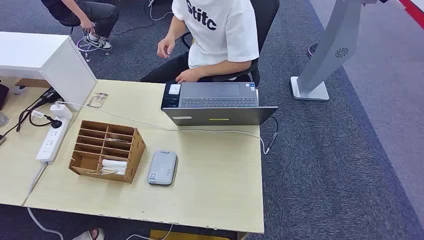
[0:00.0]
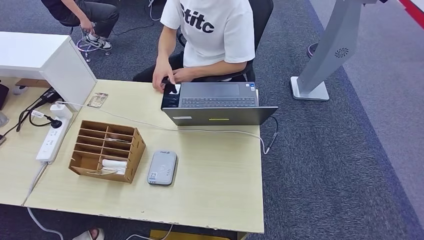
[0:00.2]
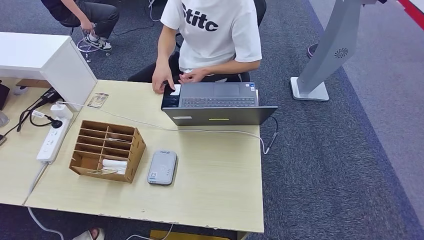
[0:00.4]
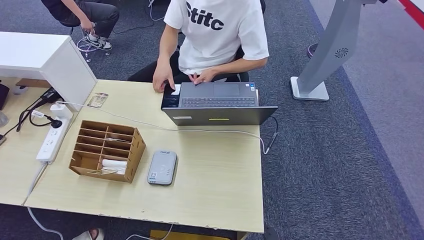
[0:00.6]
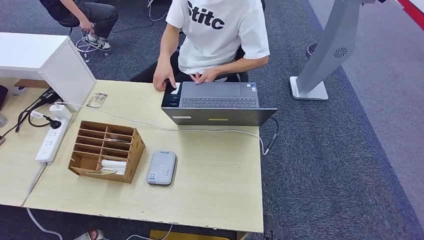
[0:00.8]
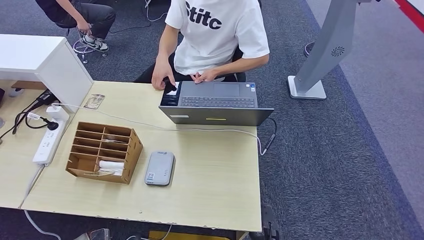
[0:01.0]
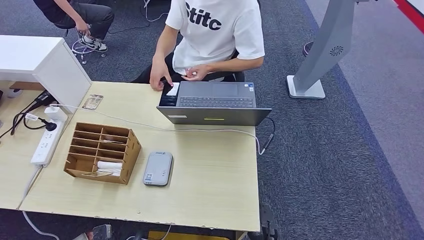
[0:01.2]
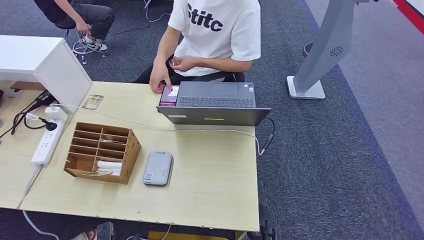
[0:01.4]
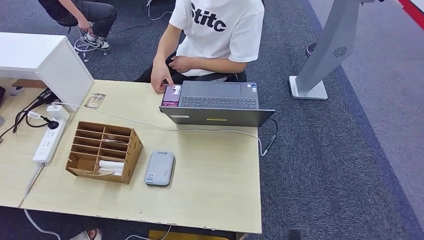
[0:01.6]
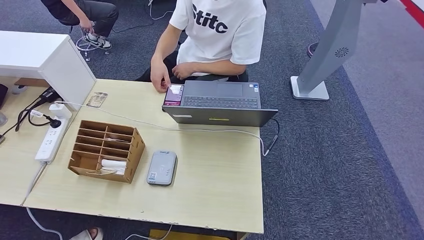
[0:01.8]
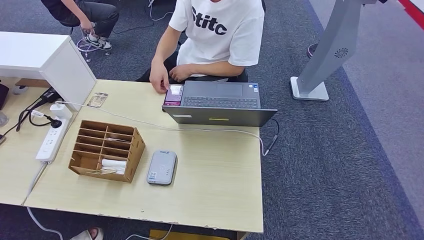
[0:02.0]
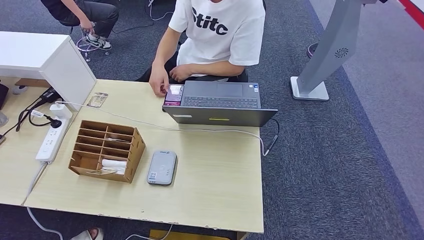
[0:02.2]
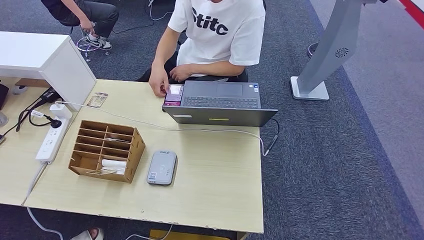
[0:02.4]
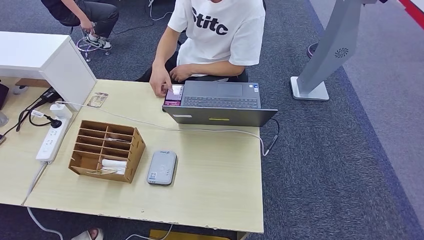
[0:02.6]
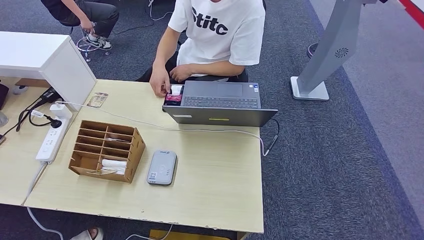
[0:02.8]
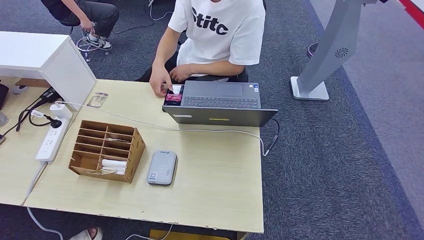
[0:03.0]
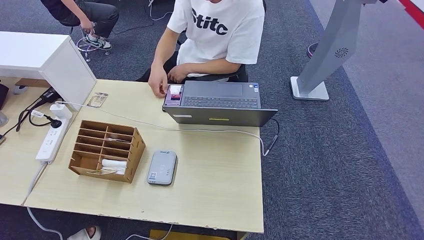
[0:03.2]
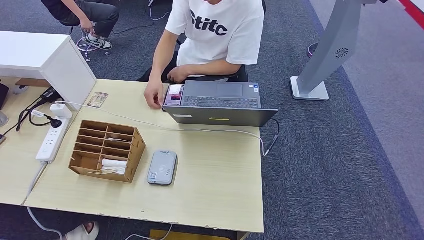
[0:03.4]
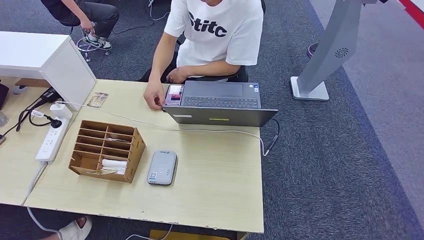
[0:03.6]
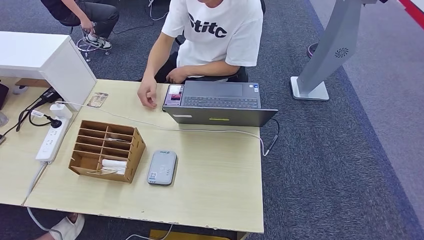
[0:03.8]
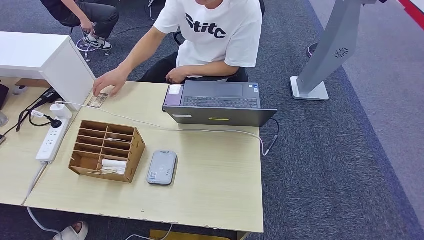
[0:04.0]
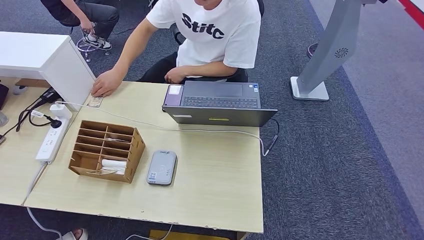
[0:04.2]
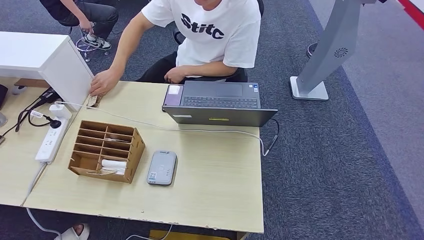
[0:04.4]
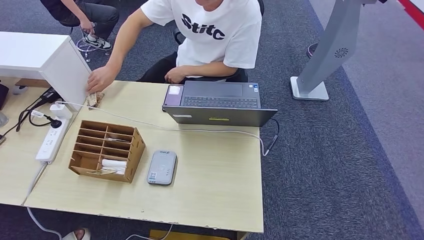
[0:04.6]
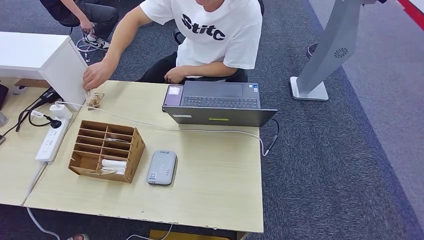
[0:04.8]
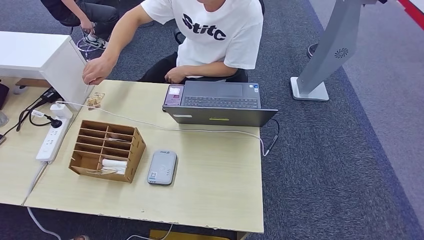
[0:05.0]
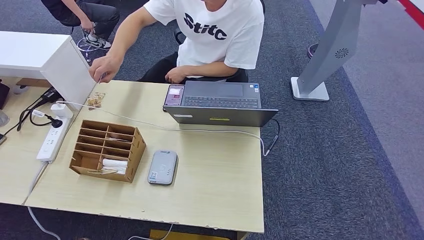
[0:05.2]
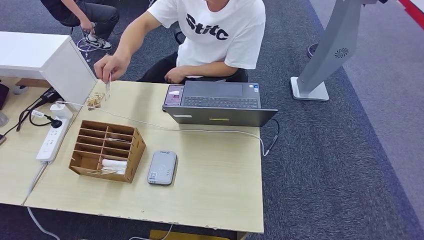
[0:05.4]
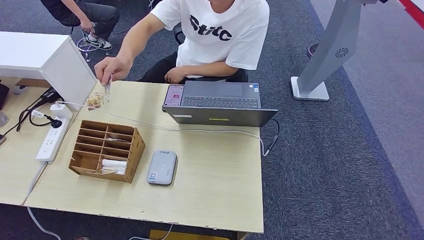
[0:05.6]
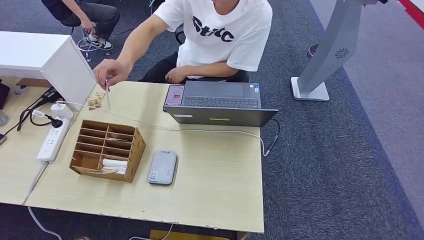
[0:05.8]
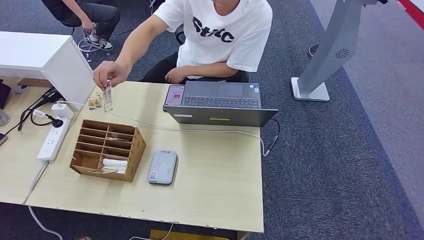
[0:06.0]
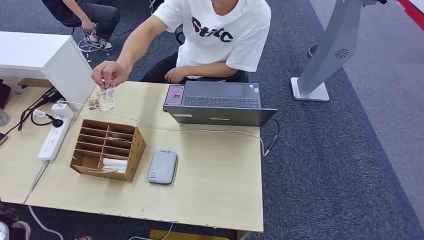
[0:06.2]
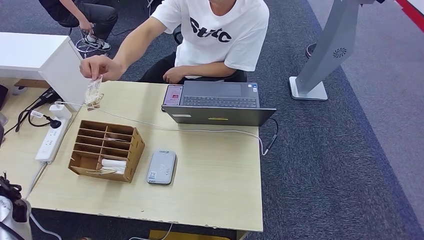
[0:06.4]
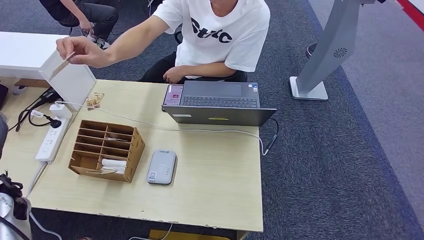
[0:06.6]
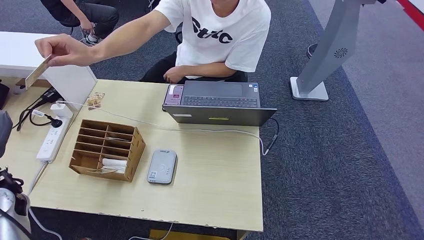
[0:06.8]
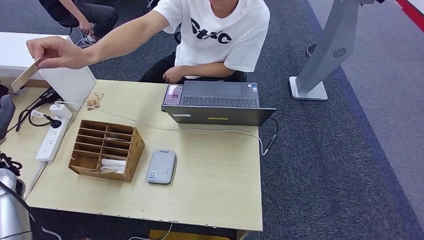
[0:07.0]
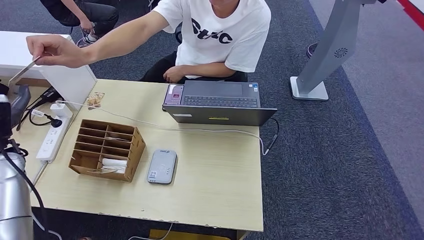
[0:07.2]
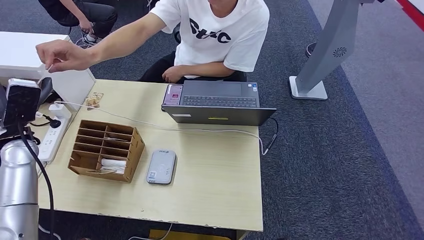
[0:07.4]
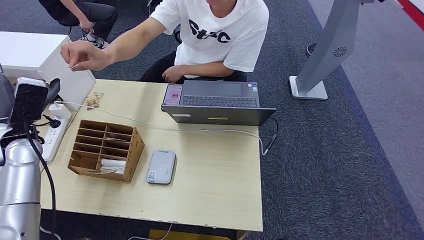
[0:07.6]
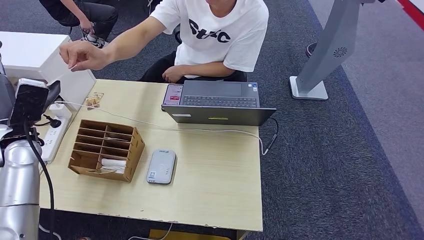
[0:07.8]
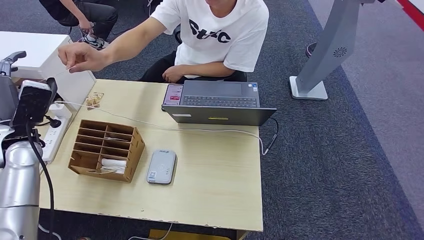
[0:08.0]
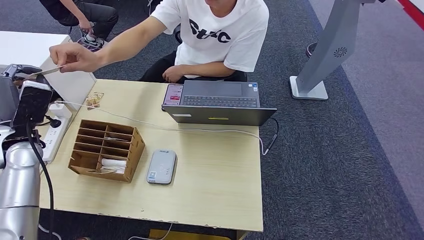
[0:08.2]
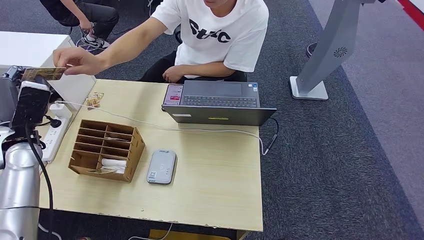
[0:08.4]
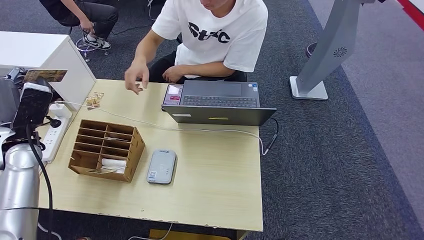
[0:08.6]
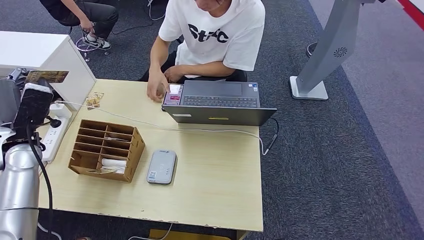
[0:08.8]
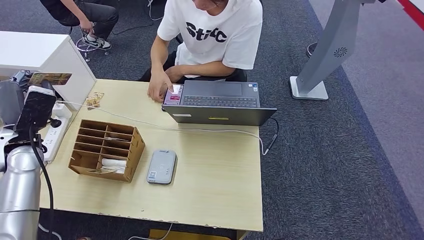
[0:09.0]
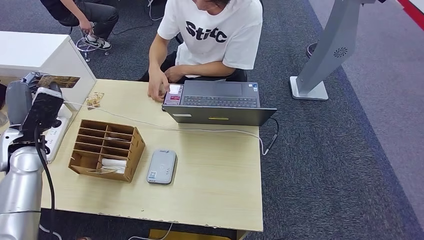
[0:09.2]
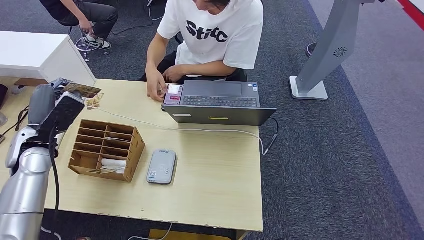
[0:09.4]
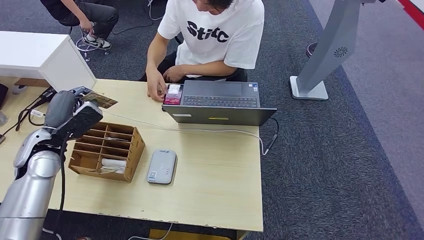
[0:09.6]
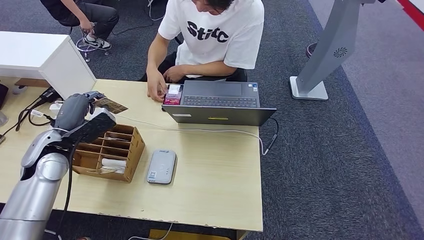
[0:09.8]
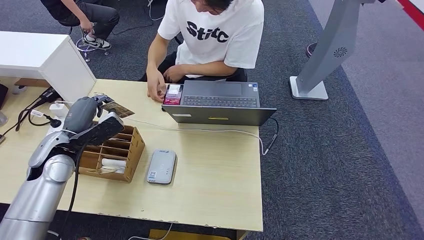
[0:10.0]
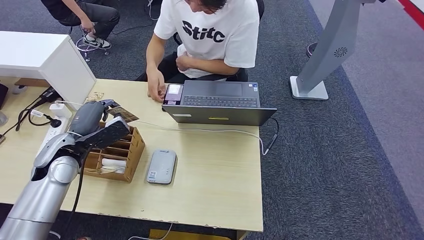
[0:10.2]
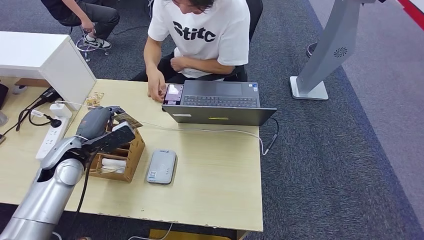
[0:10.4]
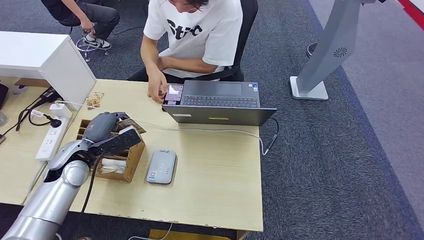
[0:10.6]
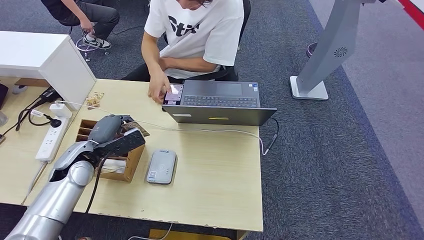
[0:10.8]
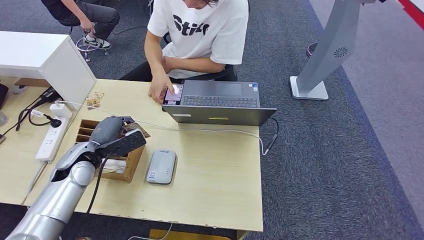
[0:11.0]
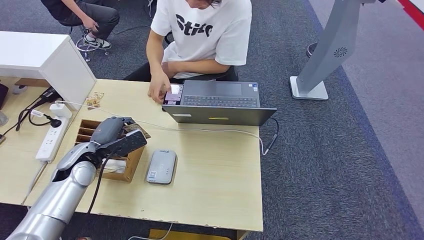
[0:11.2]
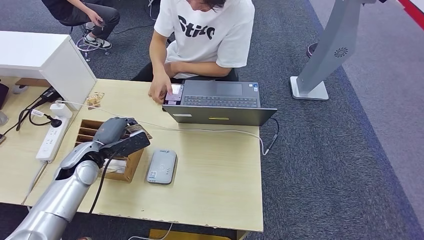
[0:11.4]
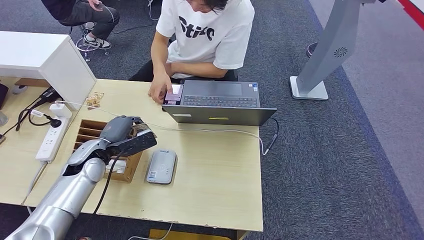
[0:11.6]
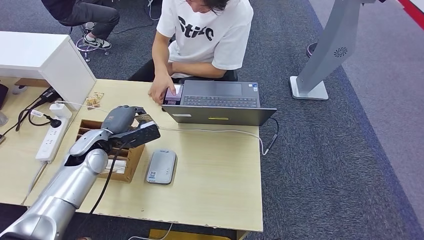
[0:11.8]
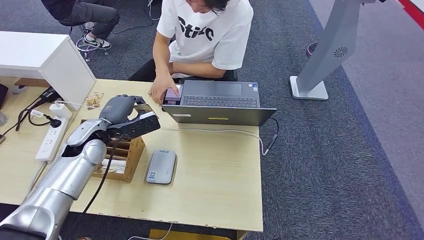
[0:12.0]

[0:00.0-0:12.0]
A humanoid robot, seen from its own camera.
Step, 0:00.0 to 0:08.6: Take the ID card from the person's hand.
0:01.6 to 0:03.0: The right hand moves about 5 cm.
0:03.0 to 0:04.4: The left hand is displaced to the left by roughly 10 cm.
0:04.4 to 0:06.0: The left hand goes about 30 cm upward and forward.
0:06.0 to 0:07.6: The left hand goes about 25 cm forward and upward.
0:07.6 to 0:09.0: The hands make only small movements.
0:09.0 to 0:10.4: The left hand moves to the right, about 10 cm.
0:10.4 to 0:12.0: The left hand shifts roughly 5 cm to the right.

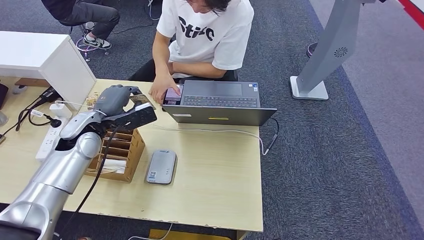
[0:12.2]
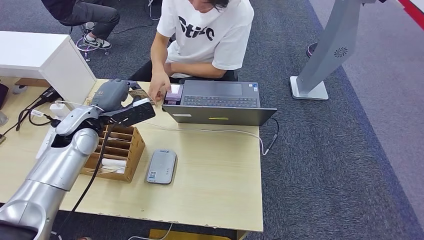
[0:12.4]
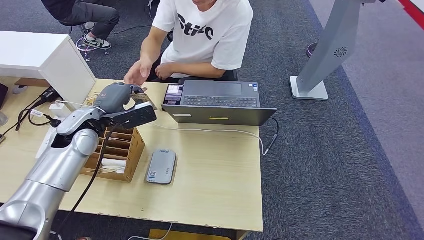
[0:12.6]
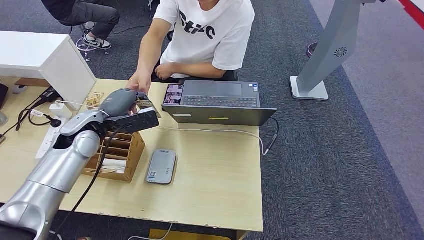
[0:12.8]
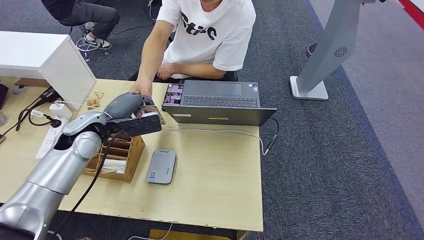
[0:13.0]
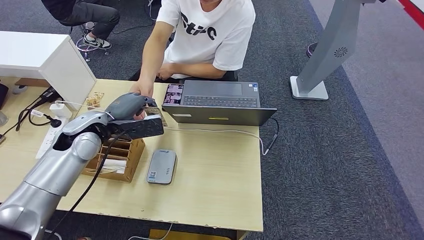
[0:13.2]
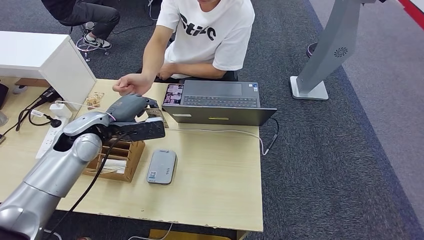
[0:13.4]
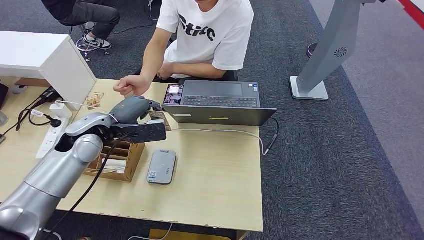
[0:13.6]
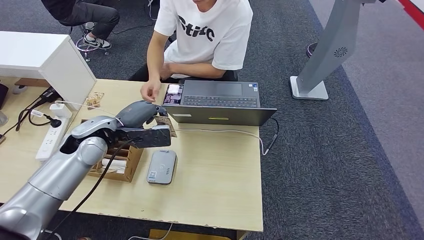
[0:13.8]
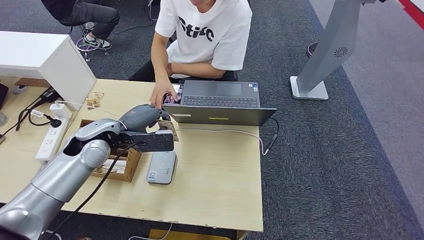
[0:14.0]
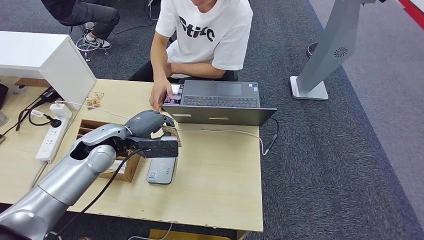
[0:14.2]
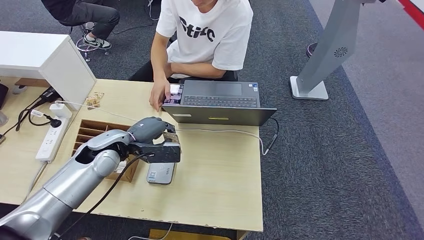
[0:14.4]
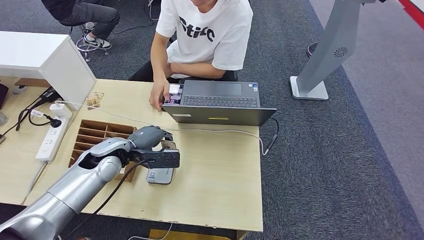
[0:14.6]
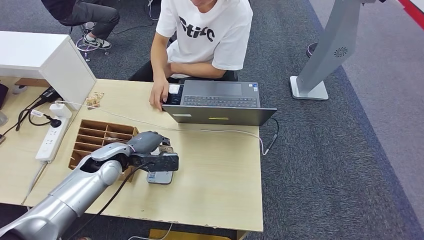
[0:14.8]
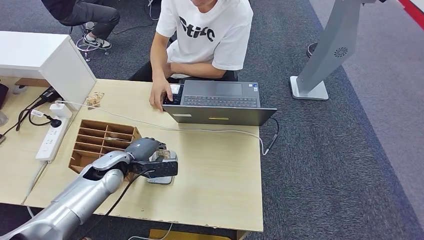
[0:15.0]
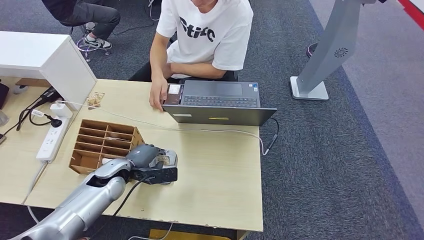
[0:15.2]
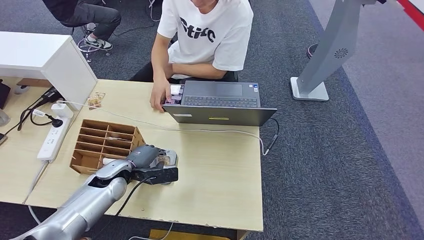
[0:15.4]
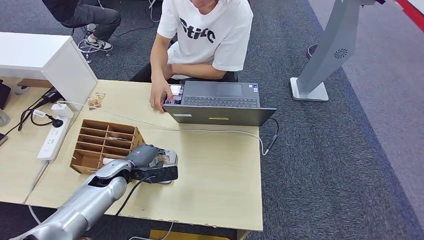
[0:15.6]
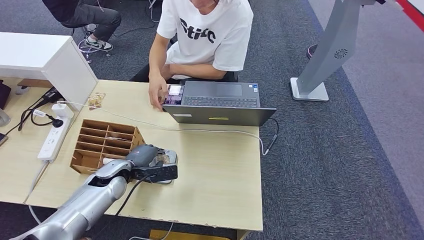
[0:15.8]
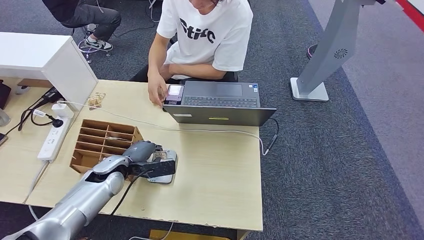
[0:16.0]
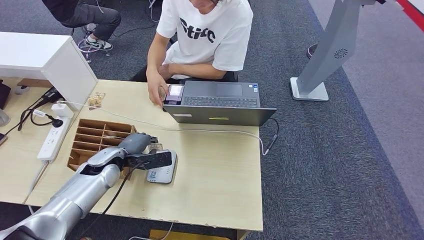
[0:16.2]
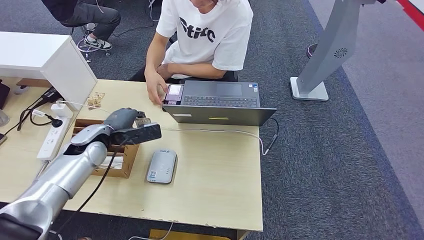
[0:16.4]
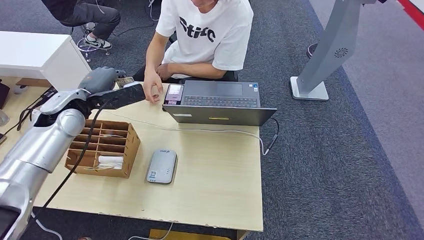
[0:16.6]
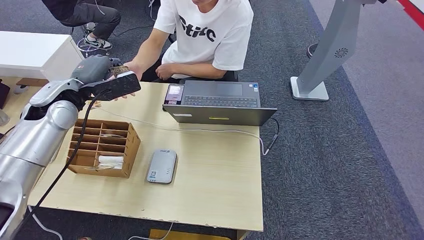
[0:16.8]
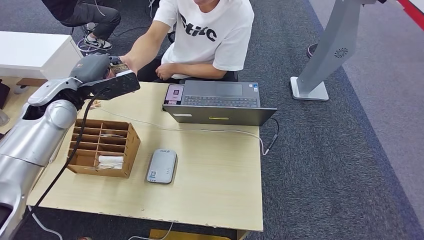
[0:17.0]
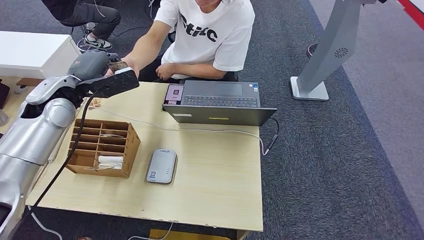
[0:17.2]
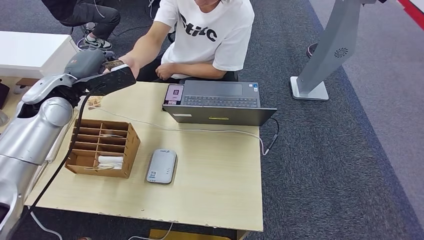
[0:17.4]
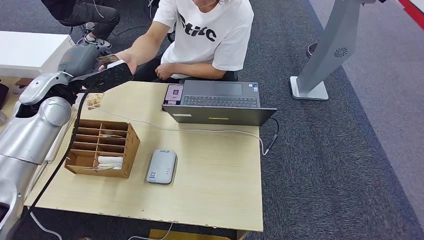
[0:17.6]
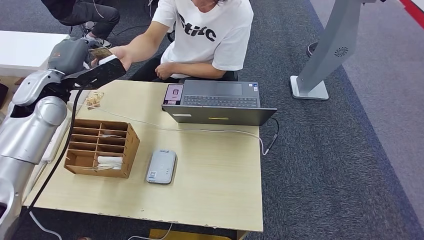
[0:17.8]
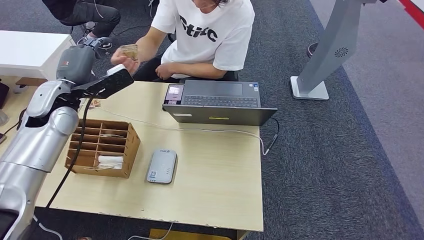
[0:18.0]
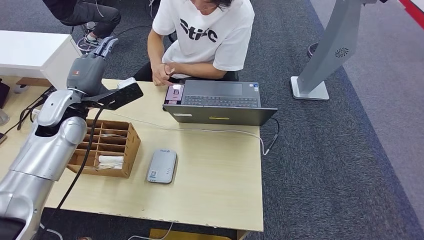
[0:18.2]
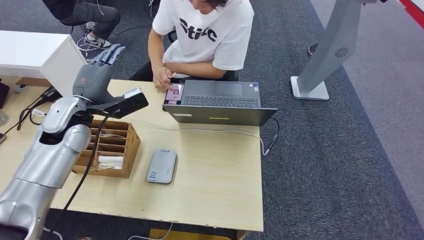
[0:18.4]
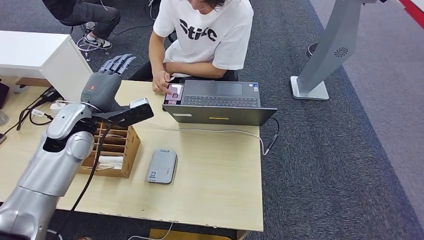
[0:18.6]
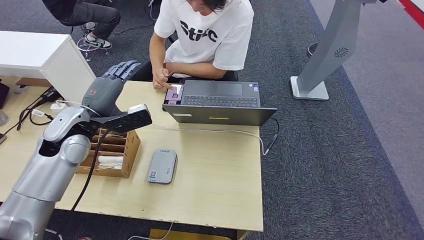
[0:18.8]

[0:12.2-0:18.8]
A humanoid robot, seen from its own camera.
Step, 0:12.2 to 0:15.2: Place the ID card on the card reader.
Step, 0:15.4 to 0:18.2: Hand the ID card to the person.
0:13.8 to 0:15.4: The left hand goes approximately 15 cm downward.
0:15.4 to 0:17.2: The left hand goes about 25 cm upward.
0:17.2 to 0:18.8: The left hand travels backward and downward by about 10 cm.
